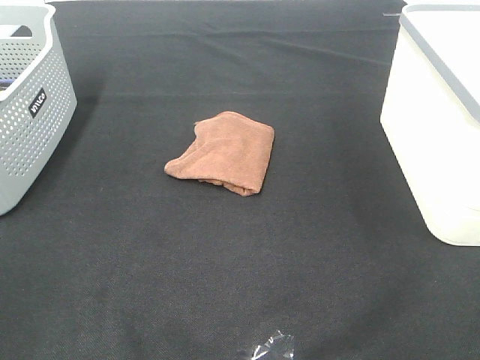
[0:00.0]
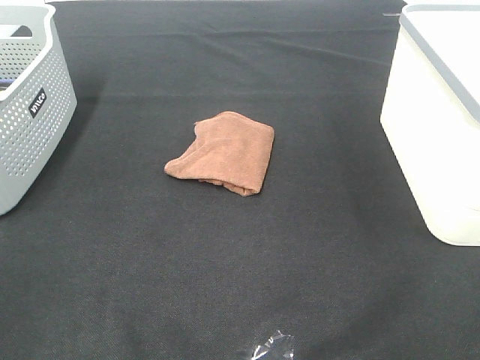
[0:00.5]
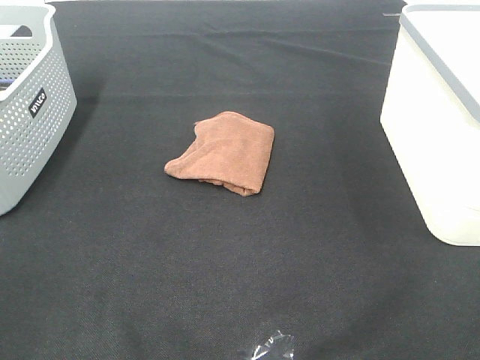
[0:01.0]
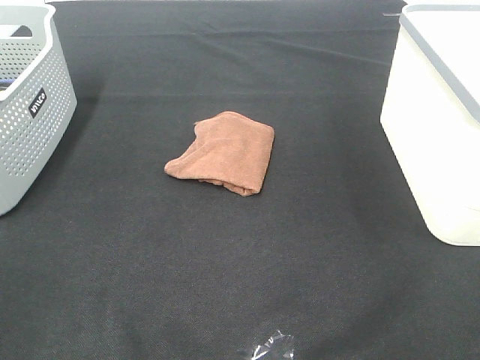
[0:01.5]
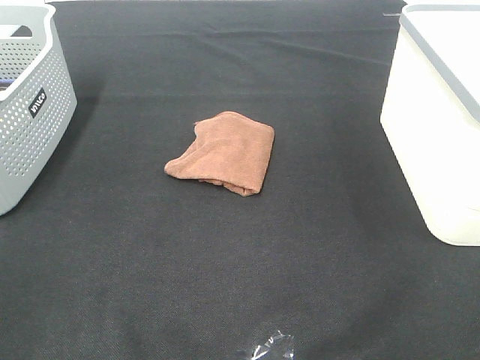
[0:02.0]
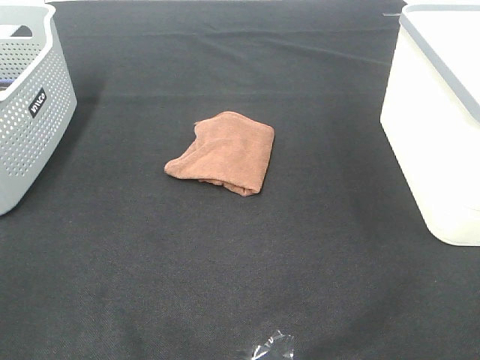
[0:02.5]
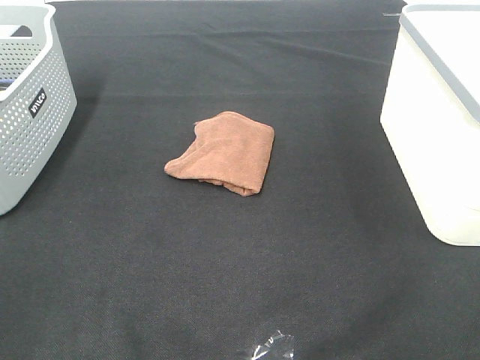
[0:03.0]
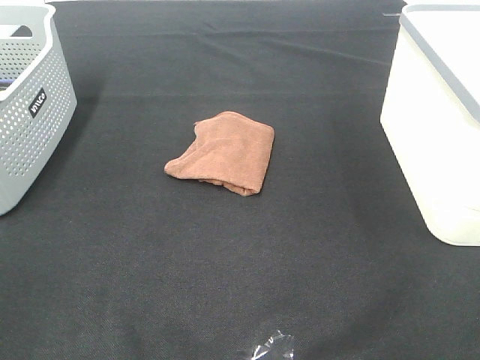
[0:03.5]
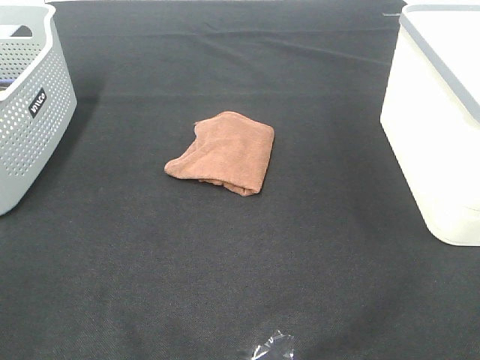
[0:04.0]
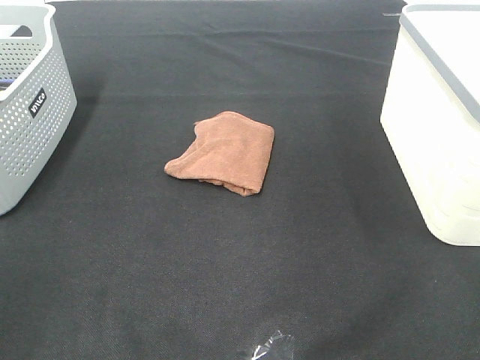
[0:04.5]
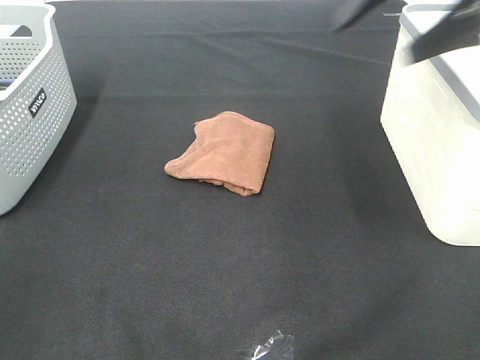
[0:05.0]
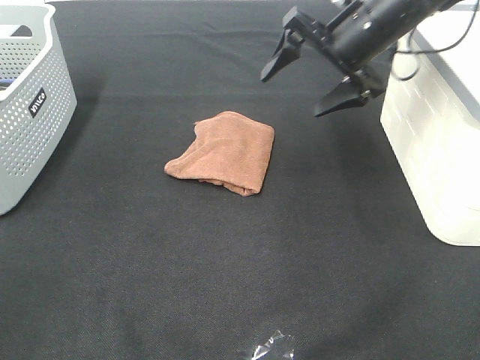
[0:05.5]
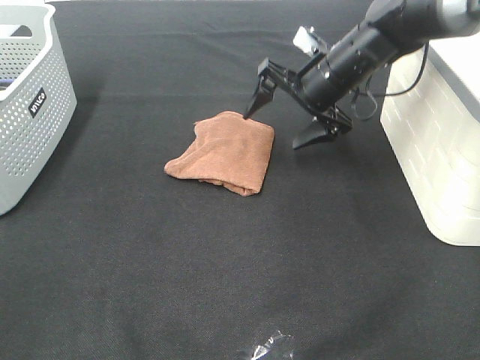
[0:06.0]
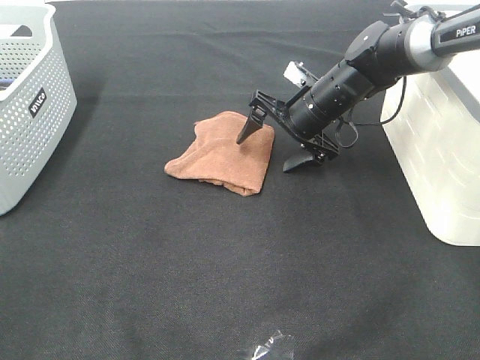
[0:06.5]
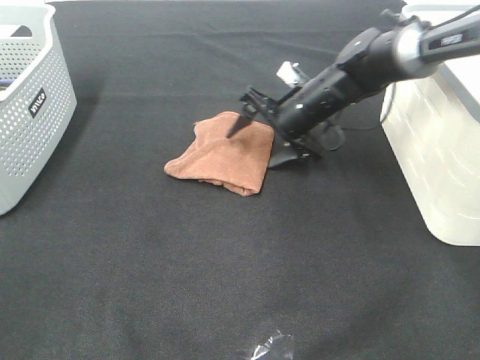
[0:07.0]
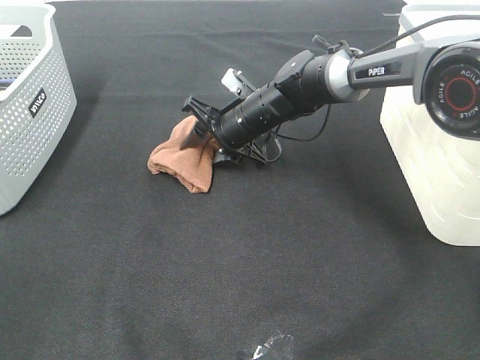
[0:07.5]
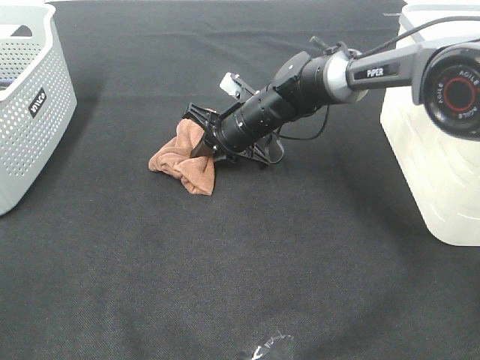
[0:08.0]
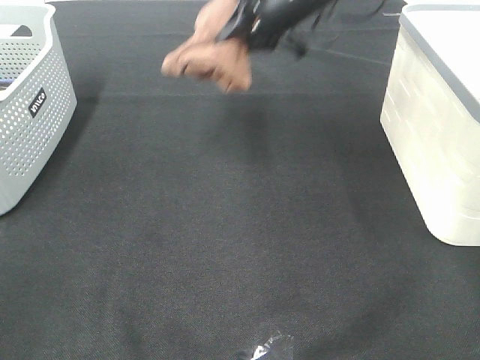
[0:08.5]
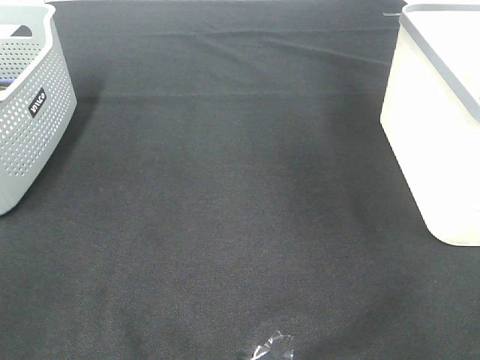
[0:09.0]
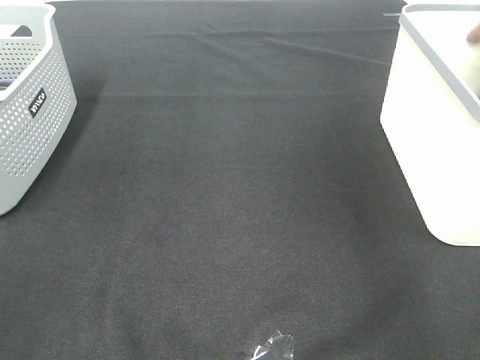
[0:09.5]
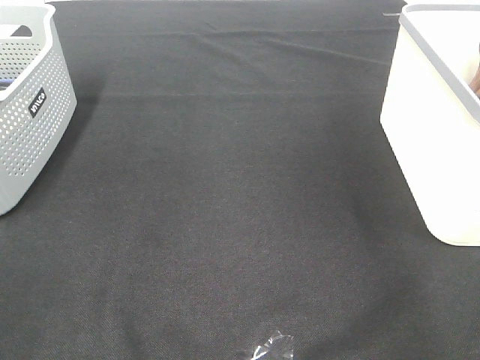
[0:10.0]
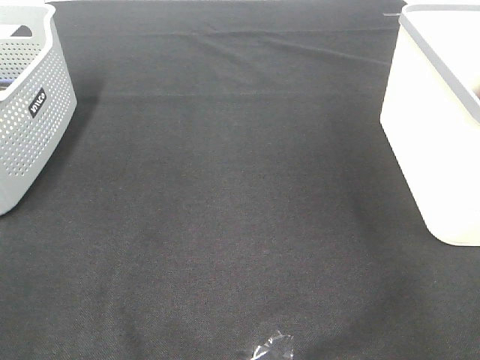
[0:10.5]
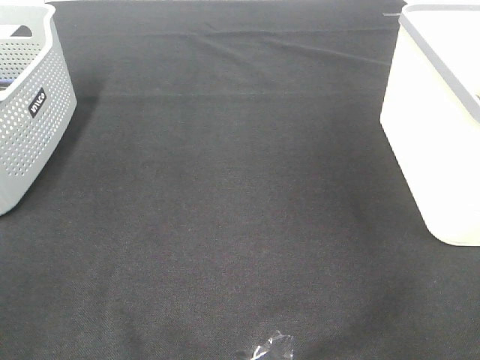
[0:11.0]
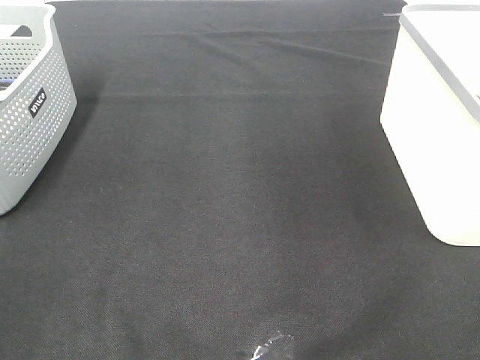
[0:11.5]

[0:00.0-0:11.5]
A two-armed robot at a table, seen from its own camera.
Step, 0:00.0 to 0:07.5: Right hand: grab the folded brown towel.
Step, 0:08.0 to 0:10.5: Right hand: place the brown towel in right basket.
0:00.0 to 0:02.0: The two grippers keep their place.
0:04.0 to 0:06.0: The right gripper goes about 40 cm forward, downward and to the left.
0:06.0 to 0:07.5: The right gripper travels to the left and downward by some 15 cm, and closes.
0:07.5 to 0:09.5: The right gripper shifts about 40 cm to the right and upward, and closes up.

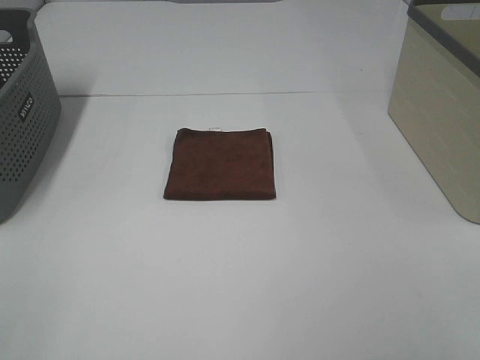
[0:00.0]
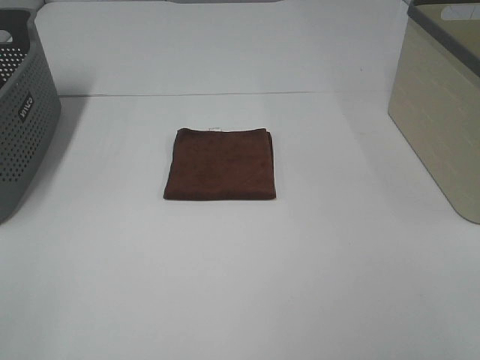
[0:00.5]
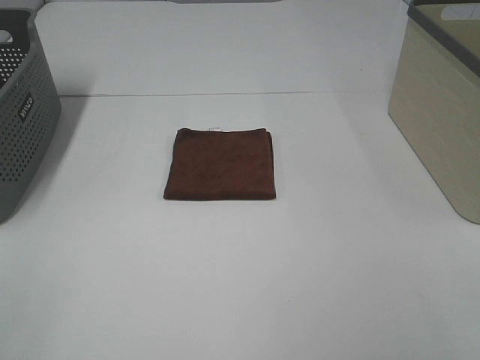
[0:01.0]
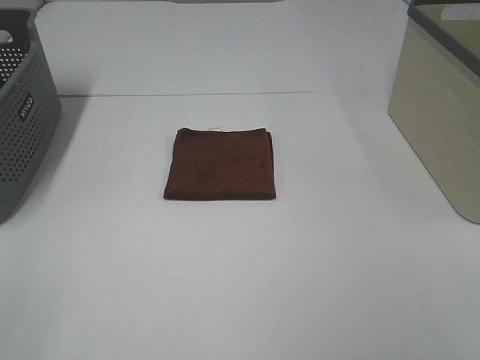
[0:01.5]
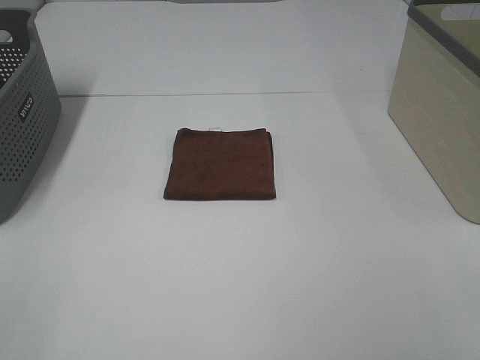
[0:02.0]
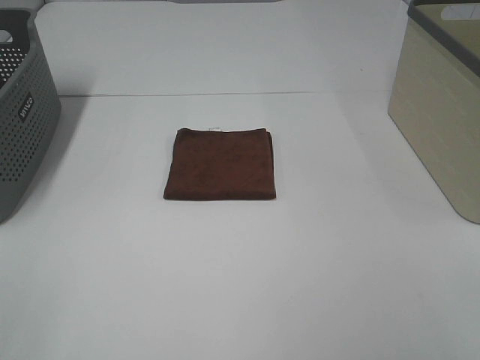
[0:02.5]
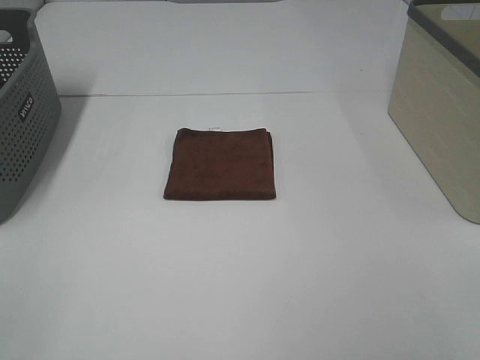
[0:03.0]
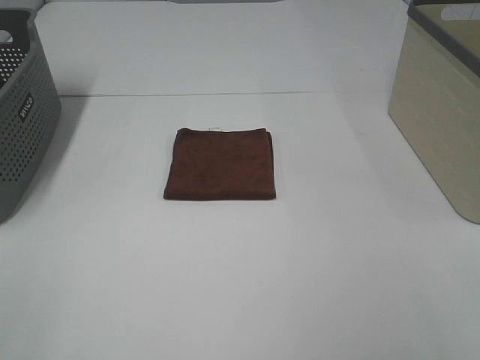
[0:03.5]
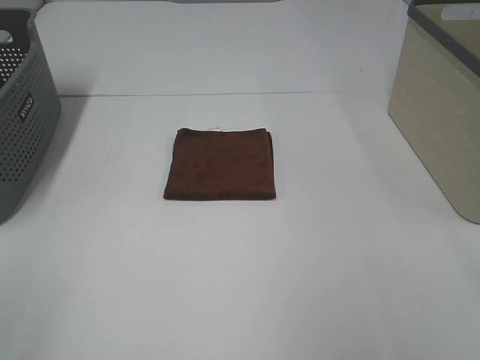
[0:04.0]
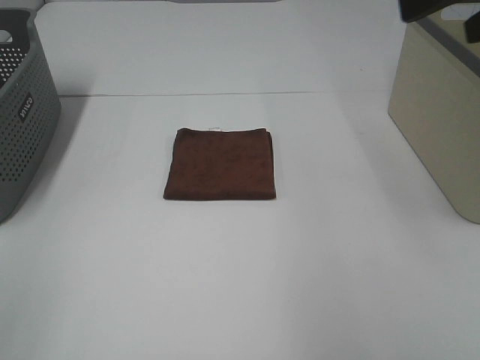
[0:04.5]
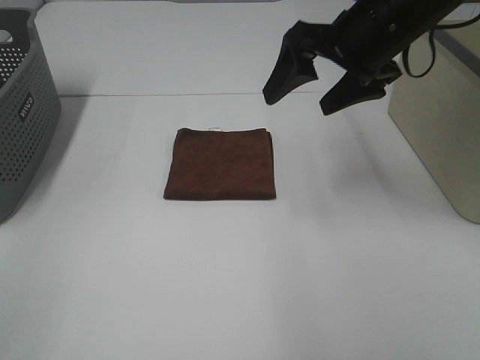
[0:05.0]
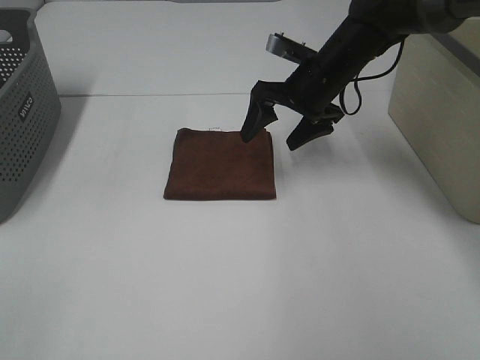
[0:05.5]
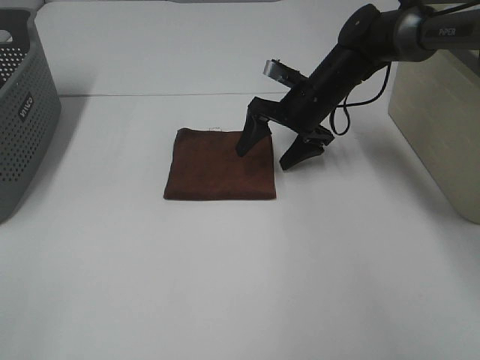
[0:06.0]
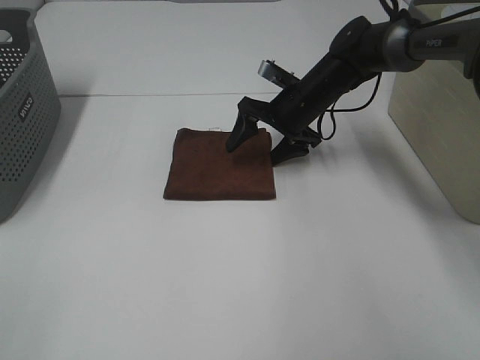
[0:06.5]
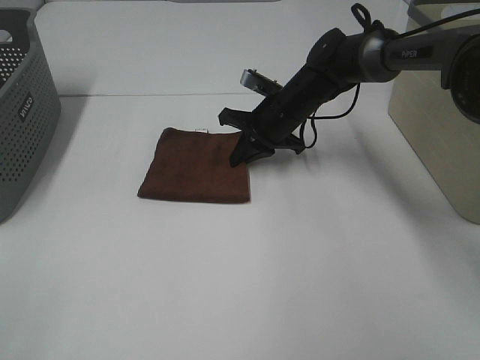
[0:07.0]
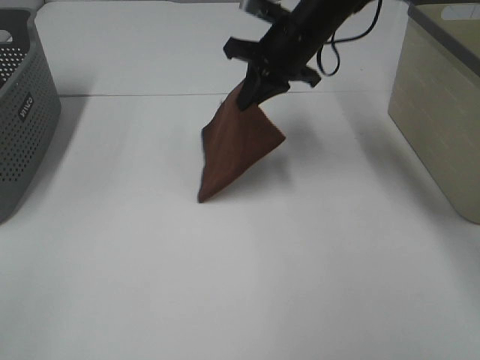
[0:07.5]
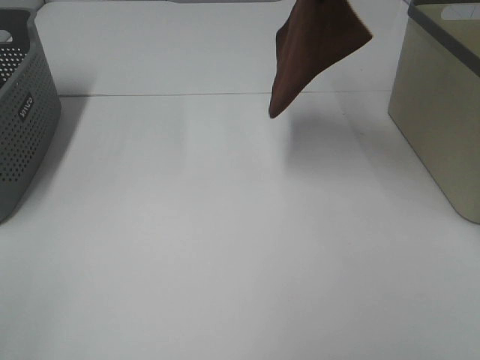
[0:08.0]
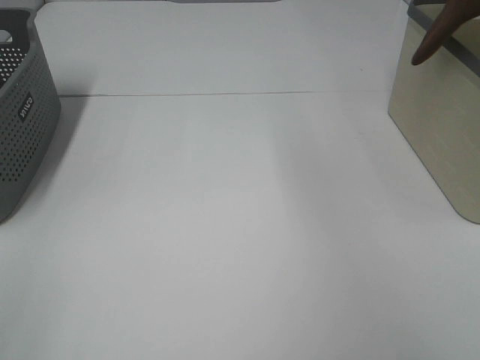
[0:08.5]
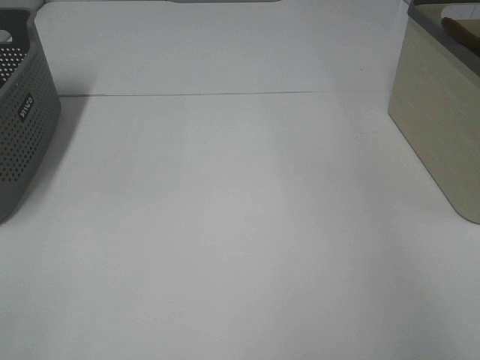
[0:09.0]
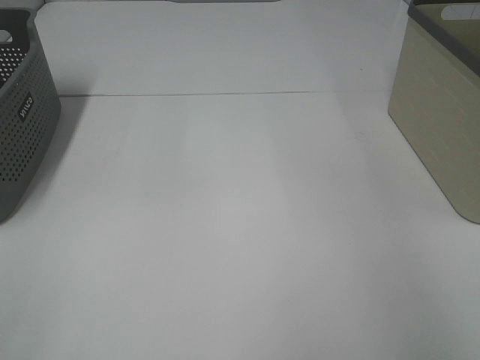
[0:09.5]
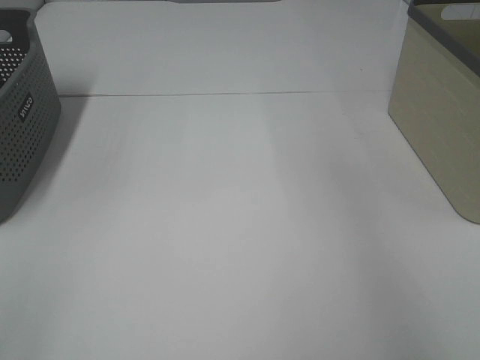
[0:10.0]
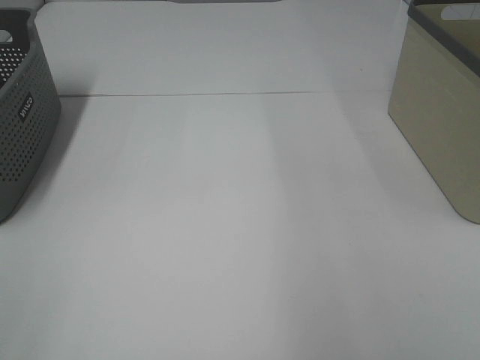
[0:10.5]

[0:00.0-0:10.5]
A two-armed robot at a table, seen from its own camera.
Step, 0:00.0 to 0:06.5: Right hand: grab the folded brown towel.
Step, 0:07.0 to 0:09.5: Right hand: place the brown towel in right basket.
0:00.0 to 0:02.0: Both grippers stay put.
0:04.0 to 0:06.5: The right gripper shifts about 50 cm forward, downward and to the left.
0:06.5 to 0:08.5: The right gripper is displaced upward and to the right by about 40 cm, and closes.
0:08.5 to 0:10.5: The right gripper goes some 10 cm backward, and opens its fingers.

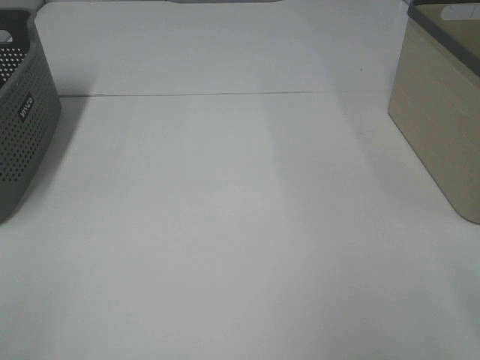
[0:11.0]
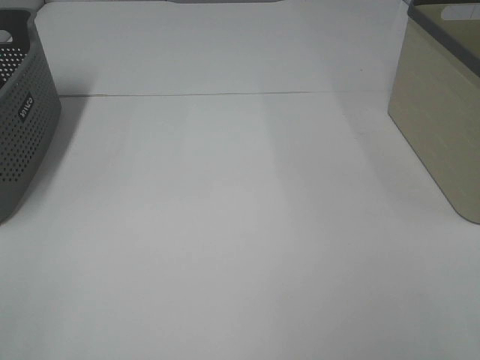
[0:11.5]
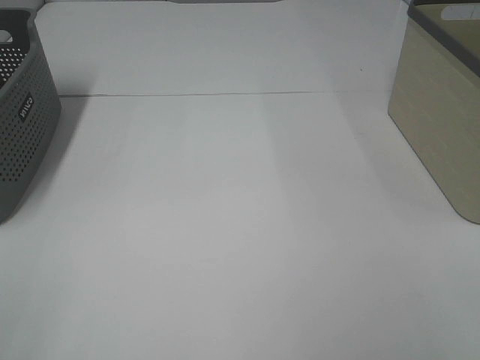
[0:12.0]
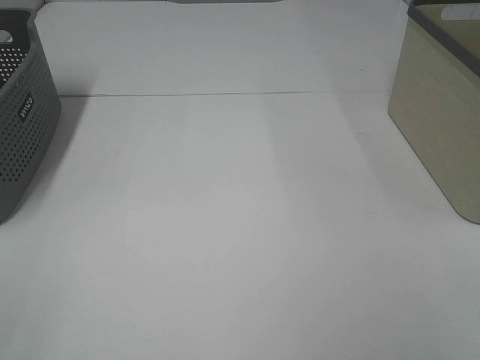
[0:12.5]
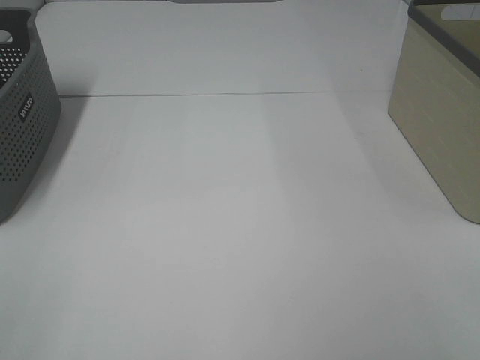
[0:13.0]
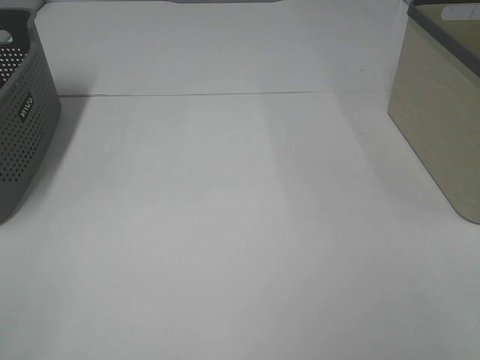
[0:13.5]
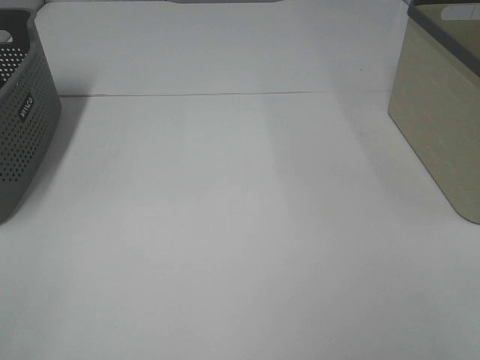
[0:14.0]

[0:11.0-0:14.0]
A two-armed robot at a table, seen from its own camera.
0:12.5 to 0:14.0: Both grippers stay put.

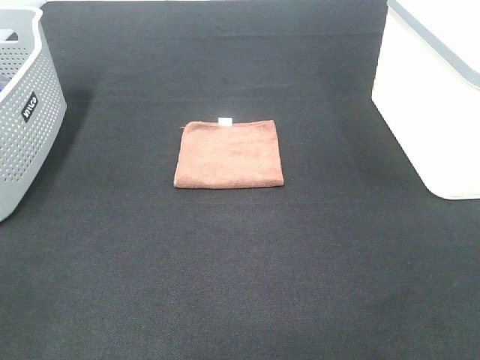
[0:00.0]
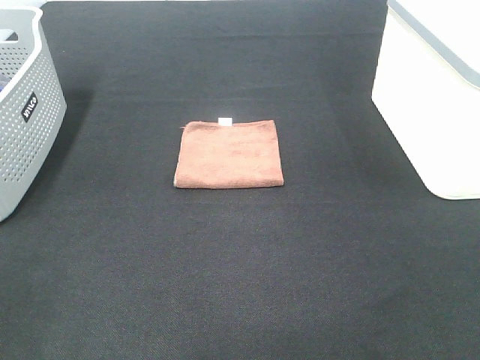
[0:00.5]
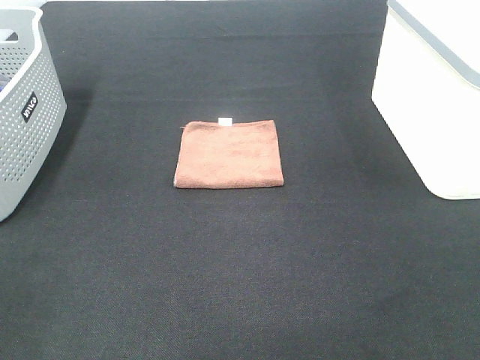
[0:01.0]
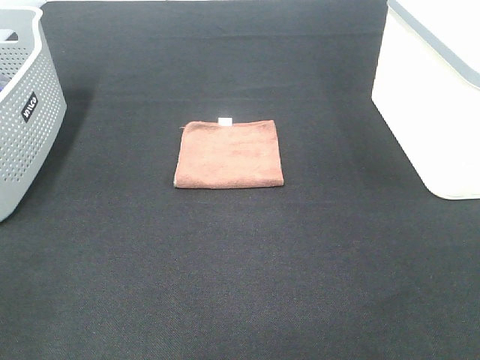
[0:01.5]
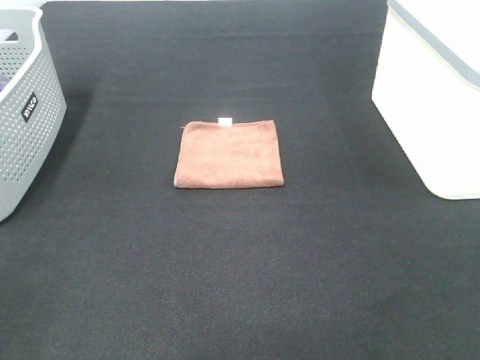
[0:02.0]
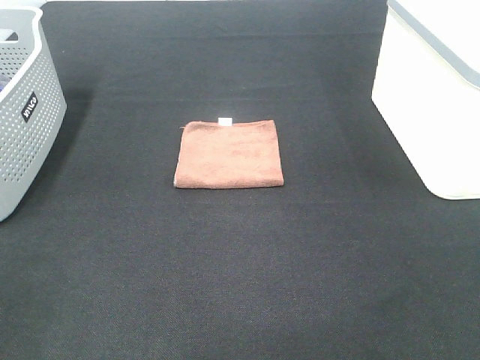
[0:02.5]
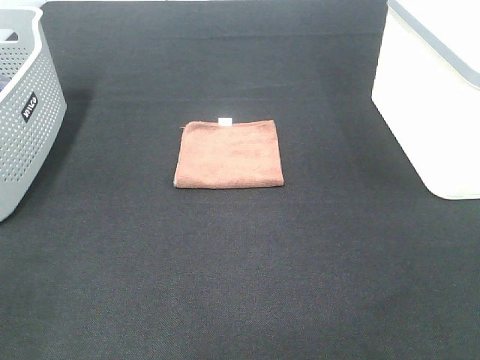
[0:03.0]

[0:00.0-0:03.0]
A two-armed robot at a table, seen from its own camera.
0:00.0 to 0:03.0: Both grippers stay about where they are.
